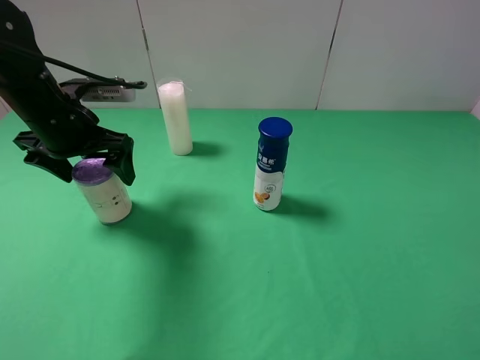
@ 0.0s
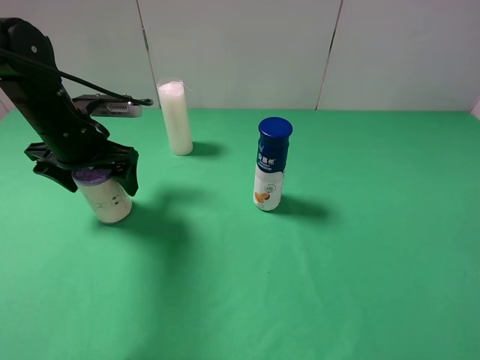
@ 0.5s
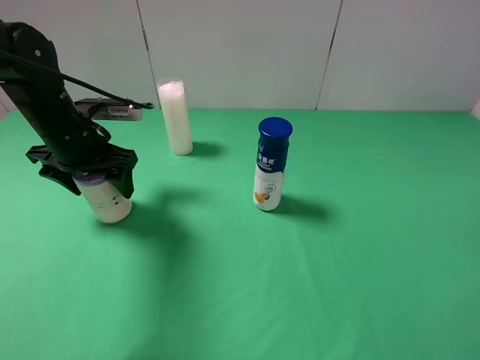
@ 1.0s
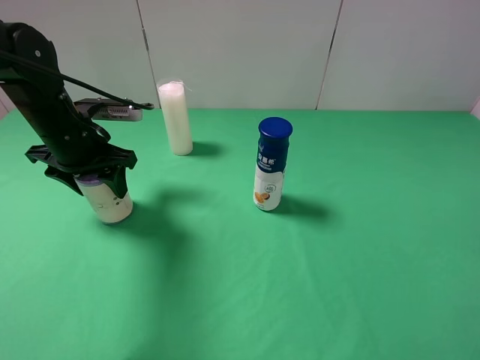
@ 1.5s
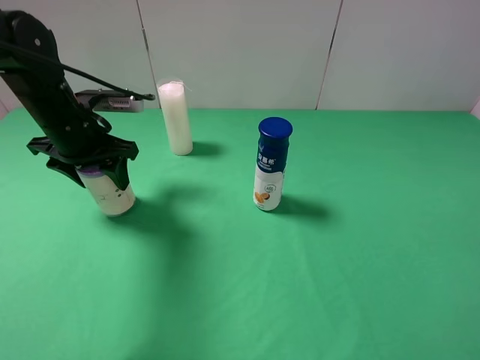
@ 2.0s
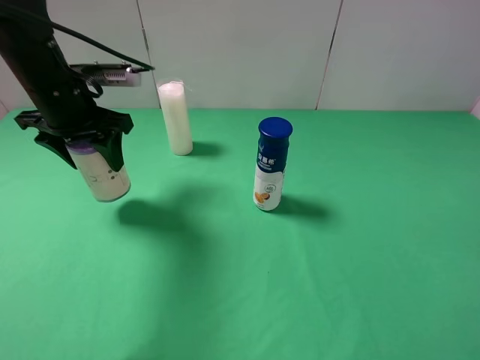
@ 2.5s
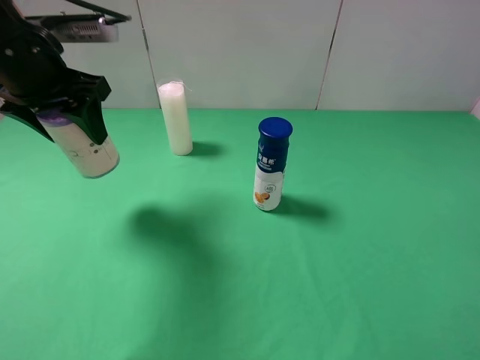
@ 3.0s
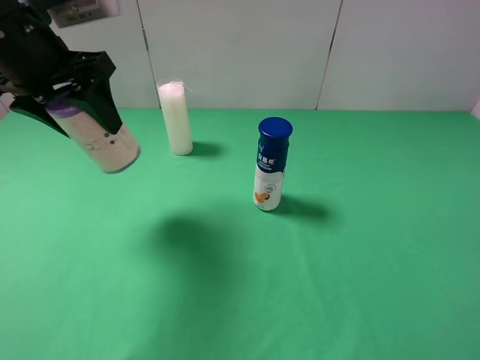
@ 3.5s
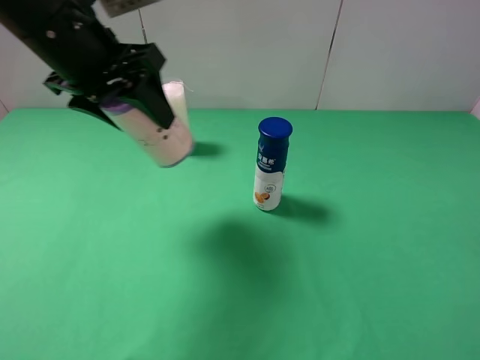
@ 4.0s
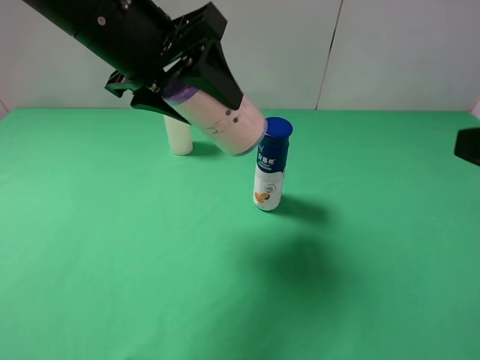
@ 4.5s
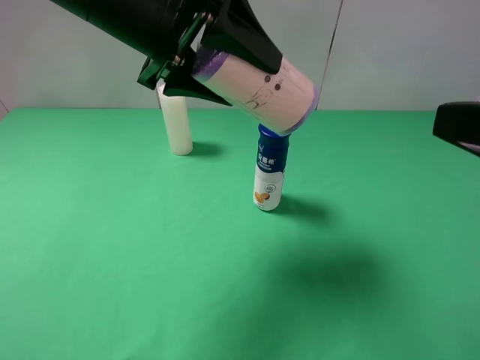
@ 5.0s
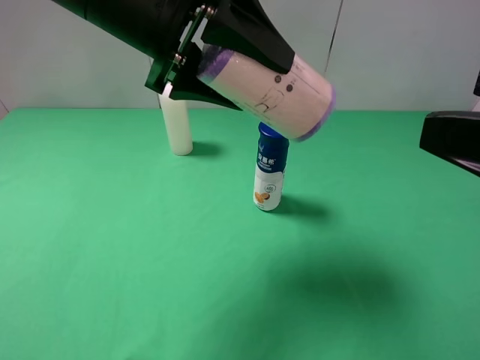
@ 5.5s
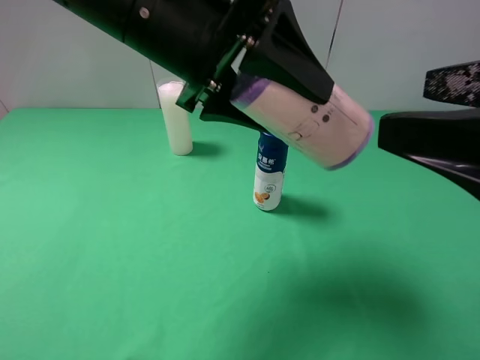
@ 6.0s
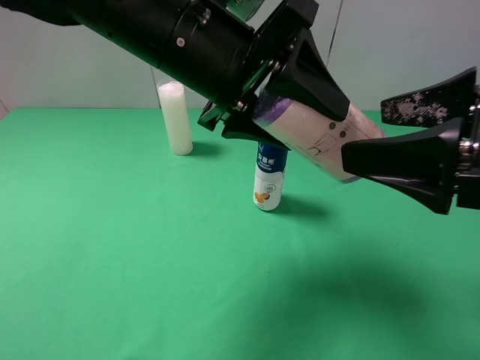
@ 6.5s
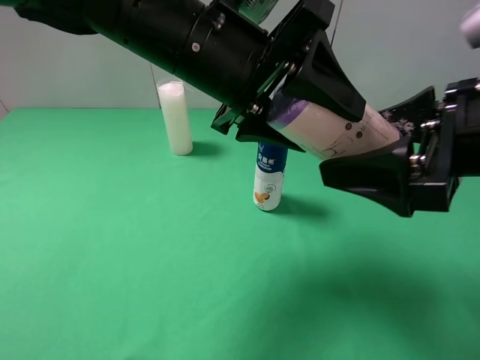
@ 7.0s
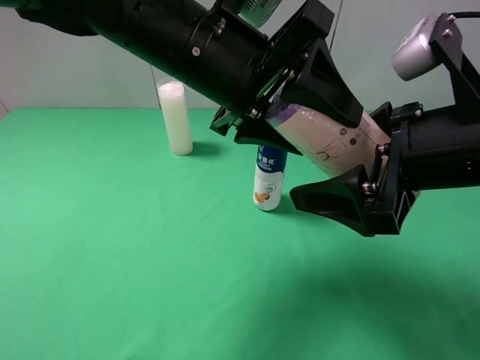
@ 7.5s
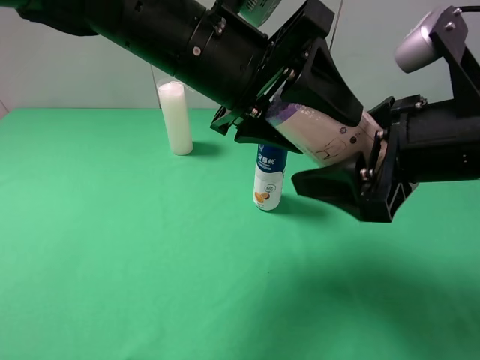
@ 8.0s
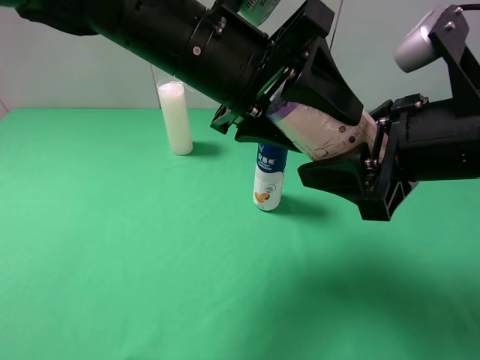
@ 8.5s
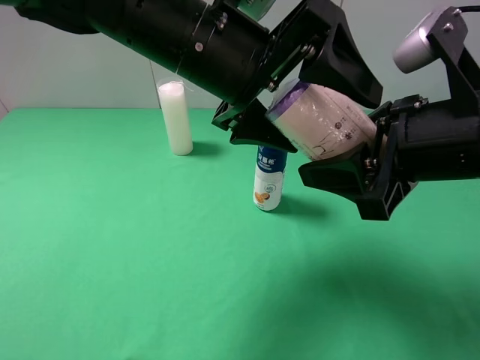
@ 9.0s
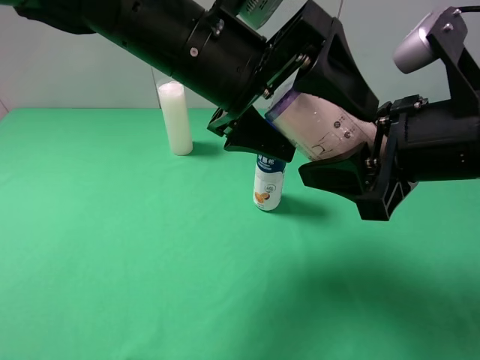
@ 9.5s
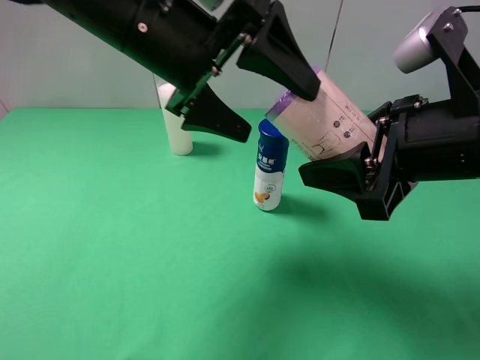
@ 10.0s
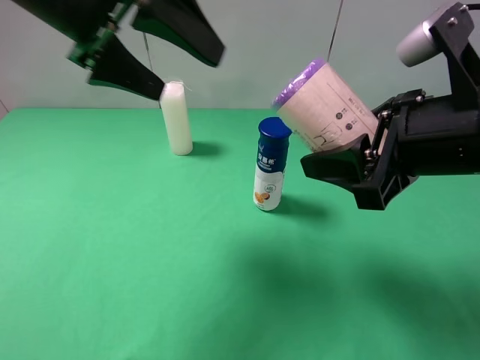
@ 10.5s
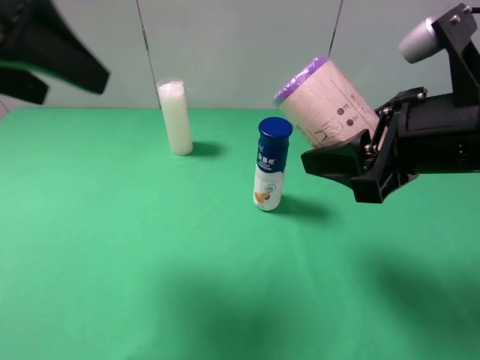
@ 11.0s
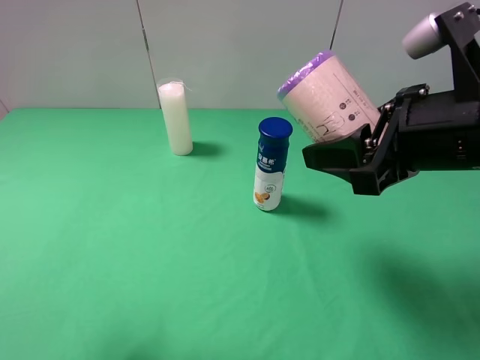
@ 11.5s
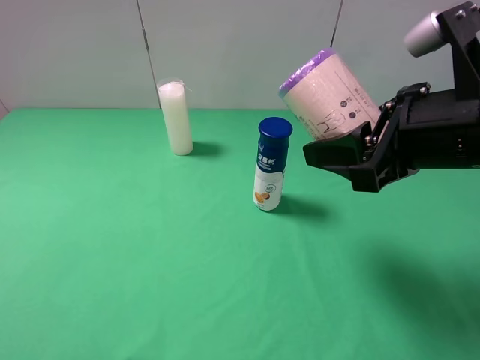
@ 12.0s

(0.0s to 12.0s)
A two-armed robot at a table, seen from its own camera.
Task of the whole recording: use the left gripper to pick up the item and transfer it from the left gripper to the right gripper.
Step, 1.5s - 9.0s: Pass the purple garbage bag to the right gripper.
0.0s - 2.0s: The left gripper closes its fingers.
2.0s - 4.0s: The left gripper travels upward and to the right by approximately 15 cm.
4.0s - 6.0s: The left gripper is displaced to the right by approximately 10 cm. The right gripper is displaced forward and to the left by roughly 10 cm.
6.0s - 8.0s: The right gripper is displaced forward and downward by approximately 10 cm, and closes its fingers.
8.0s - 10.0s: The left gripper ends up roughly 5 cm from where it was, and opens up.
10.0s - 12.0s: The left gripper shifts some 35 cm backward and to the left.

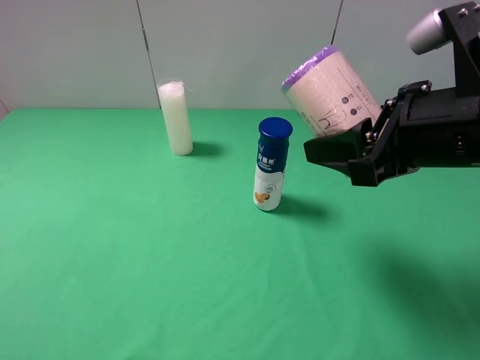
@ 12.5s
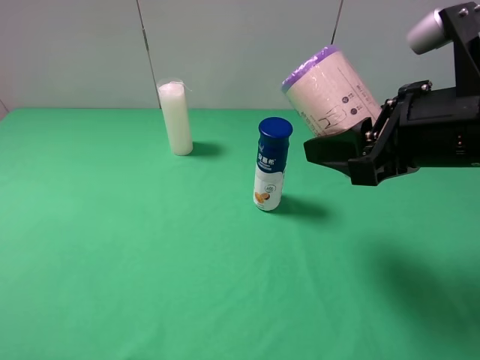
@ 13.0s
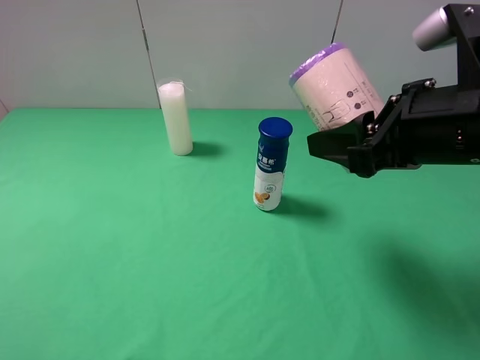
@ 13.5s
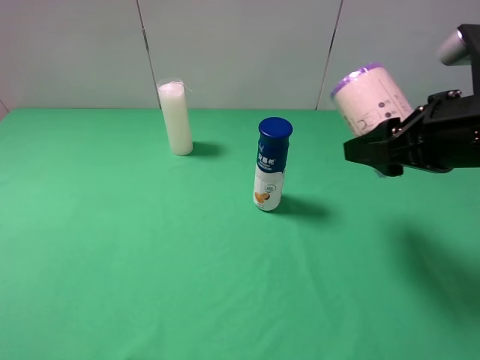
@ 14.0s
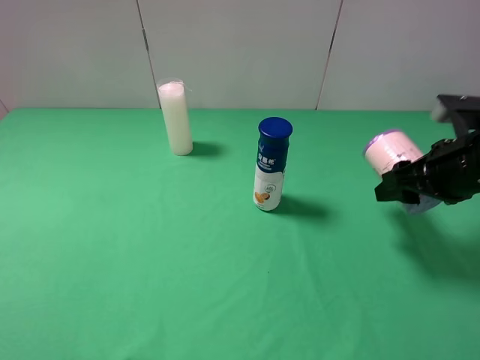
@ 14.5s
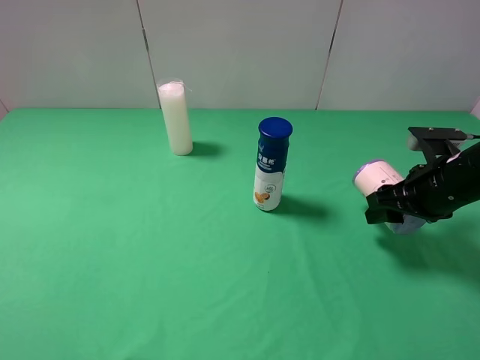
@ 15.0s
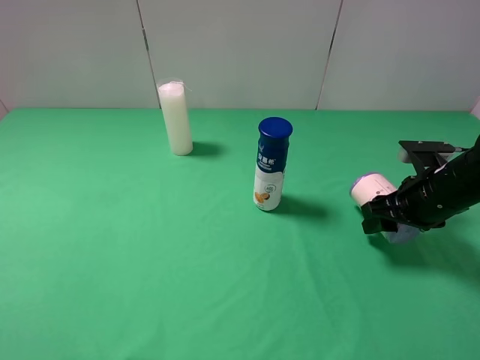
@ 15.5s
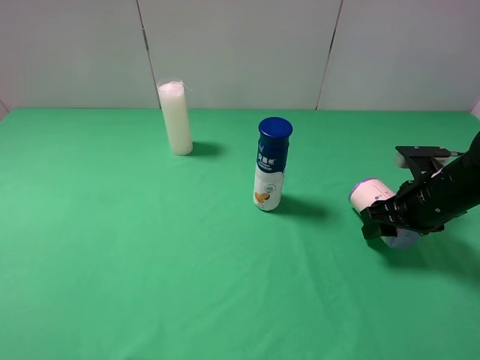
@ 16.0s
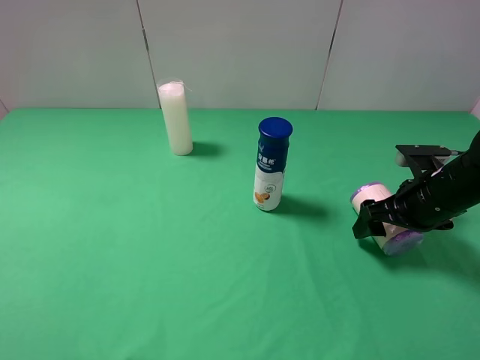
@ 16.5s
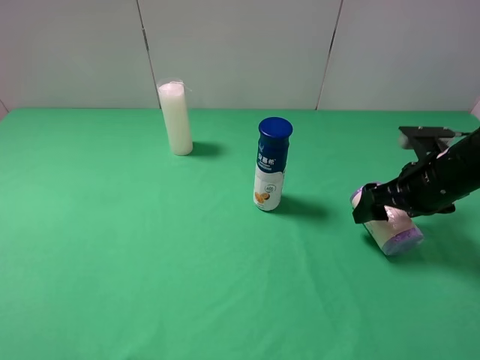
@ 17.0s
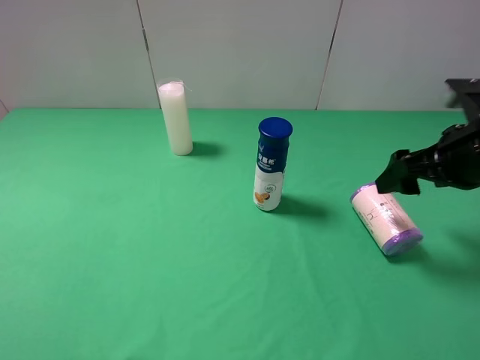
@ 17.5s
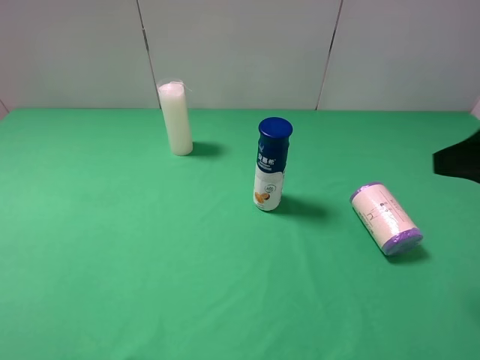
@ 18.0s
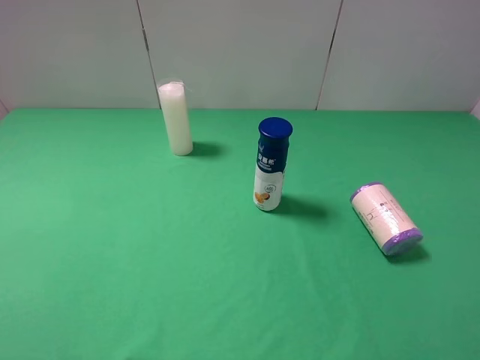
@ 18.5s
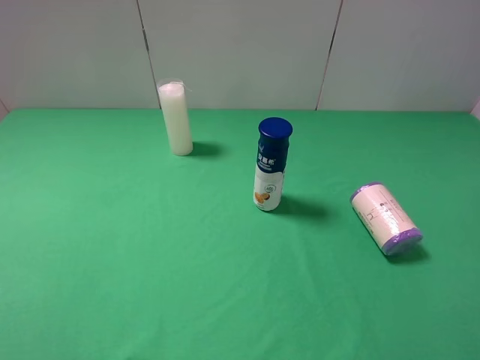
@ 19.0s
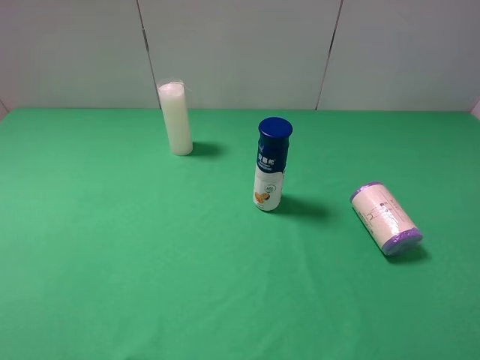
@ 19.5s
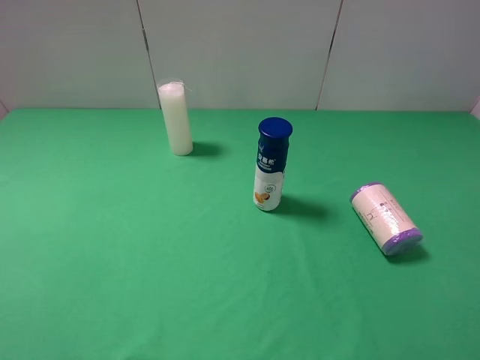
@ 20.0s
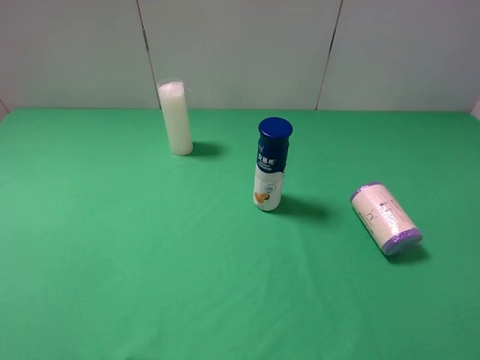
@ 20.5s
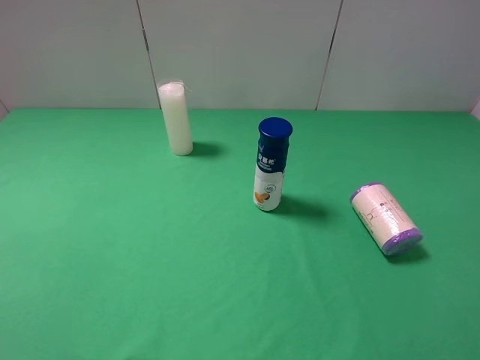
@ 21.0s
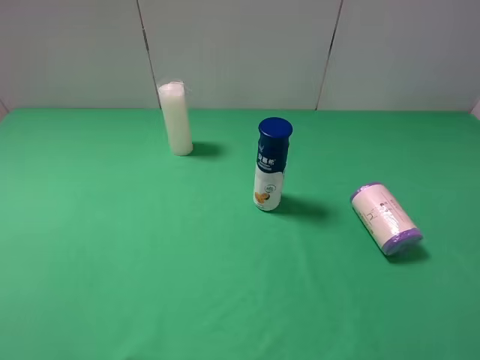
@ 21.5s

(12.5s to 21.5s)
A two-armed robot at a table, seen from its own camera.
Task of the whole recording: use the left gripper to pick up the item and transfer it from the left gripper to the right gripper.
Step, 12.5s - 16.5s: The right gripper places purple garbage bag on the right side of the table.
12.5s - 14.5s: The right gripper goes about 15 cm to the right, downward and forward.
14.5s - 17.0s: The right gripper opens up.
17.0s - 19.5s: The right gripper travels backward and upward by approximately 30 cm.
19.5s - 21.5s: The two grippers keep their place.
